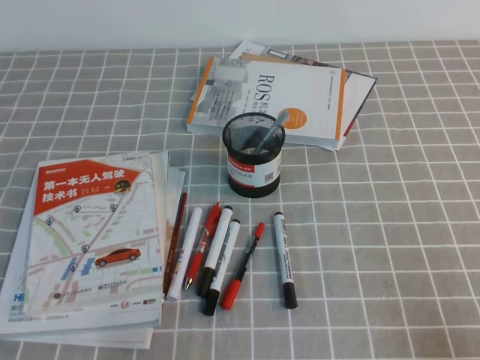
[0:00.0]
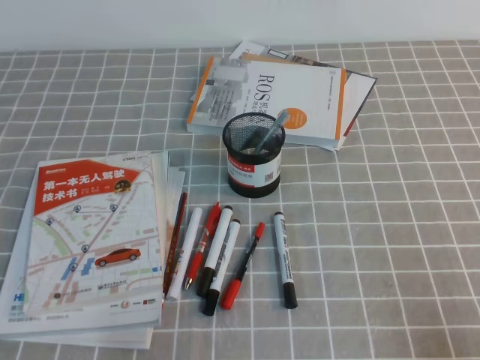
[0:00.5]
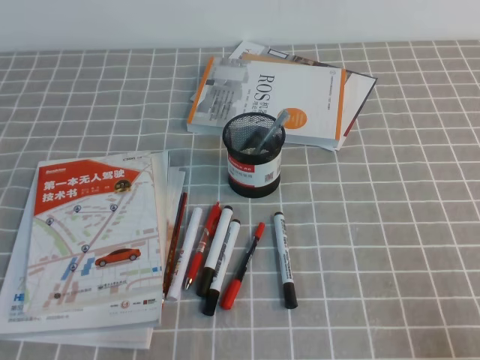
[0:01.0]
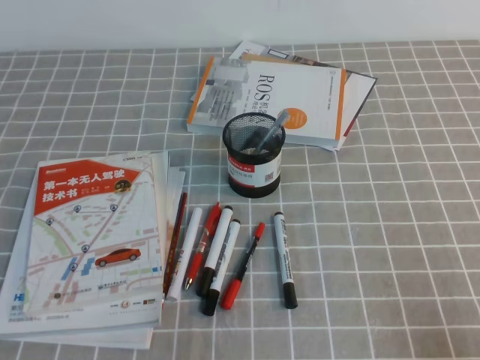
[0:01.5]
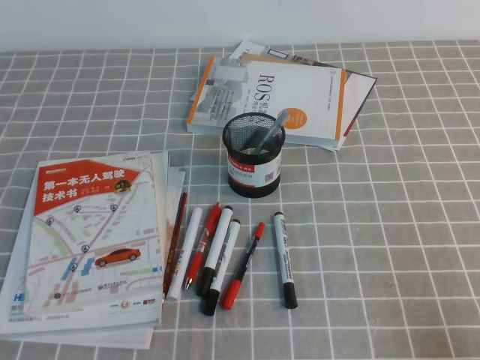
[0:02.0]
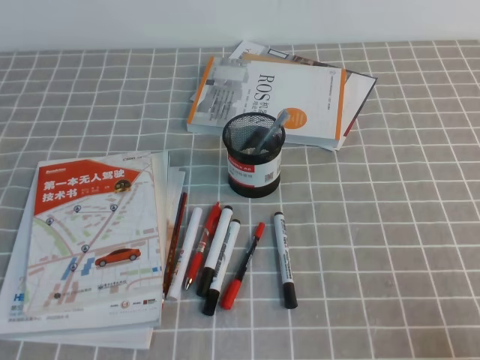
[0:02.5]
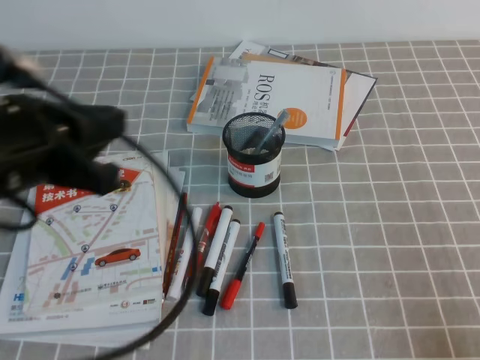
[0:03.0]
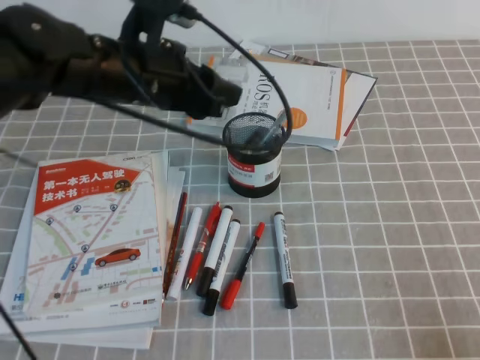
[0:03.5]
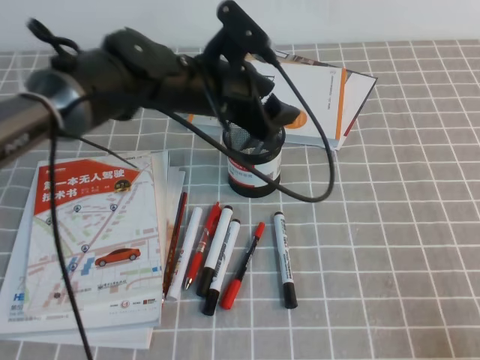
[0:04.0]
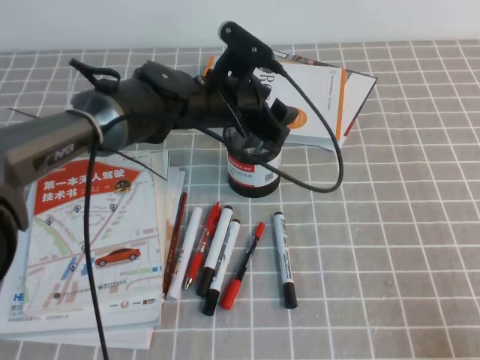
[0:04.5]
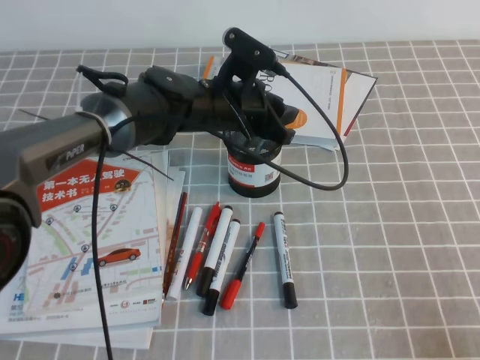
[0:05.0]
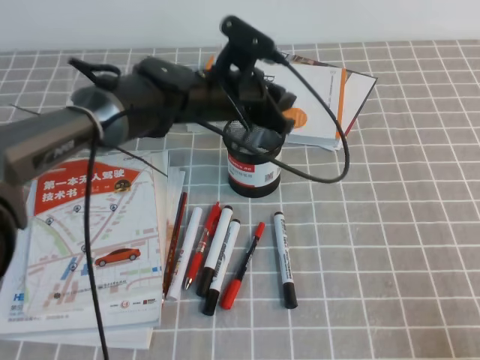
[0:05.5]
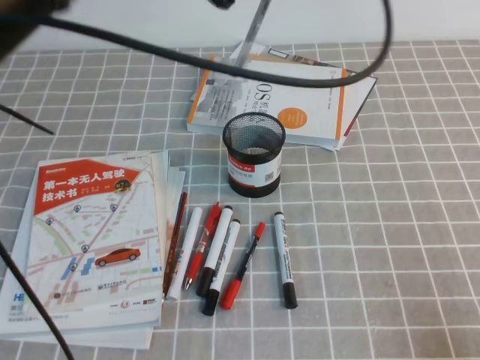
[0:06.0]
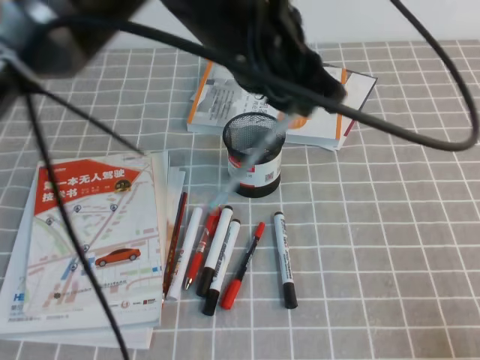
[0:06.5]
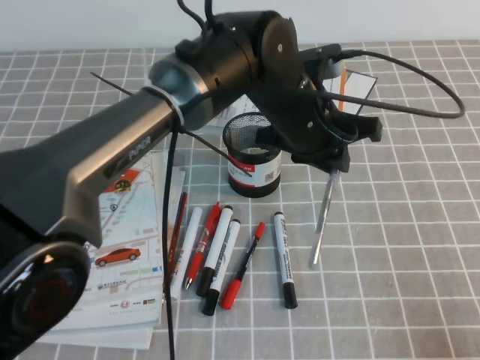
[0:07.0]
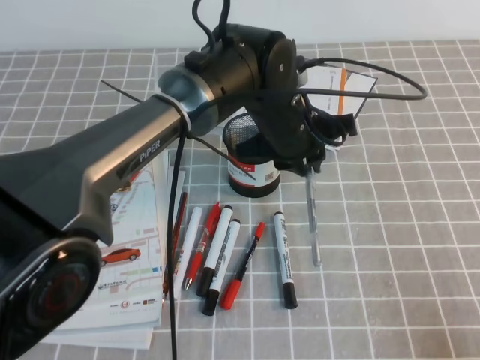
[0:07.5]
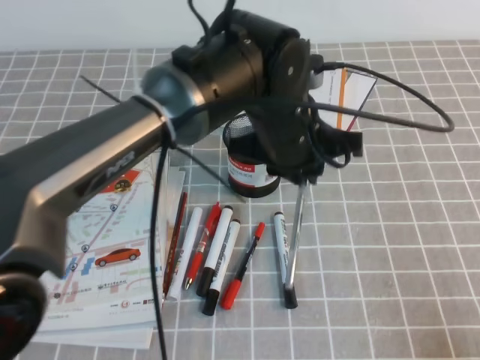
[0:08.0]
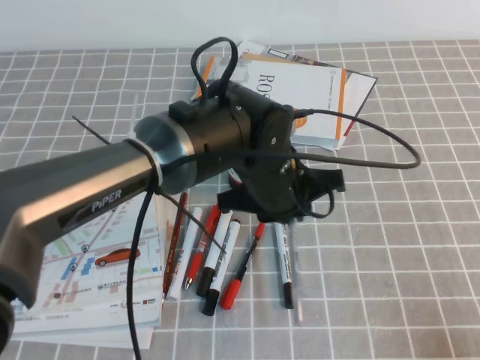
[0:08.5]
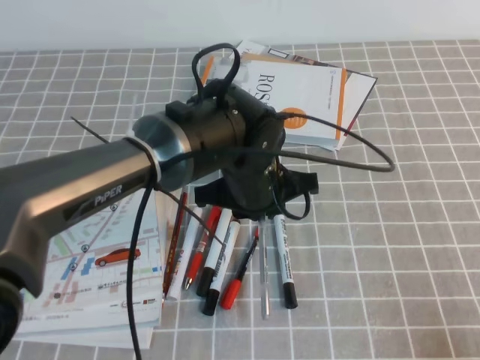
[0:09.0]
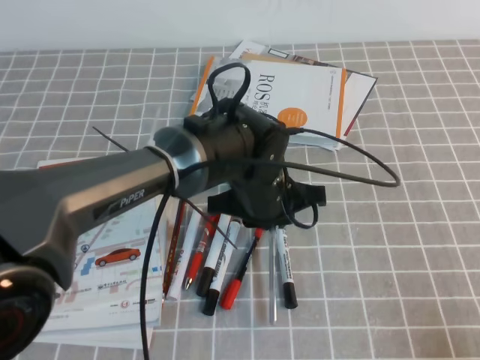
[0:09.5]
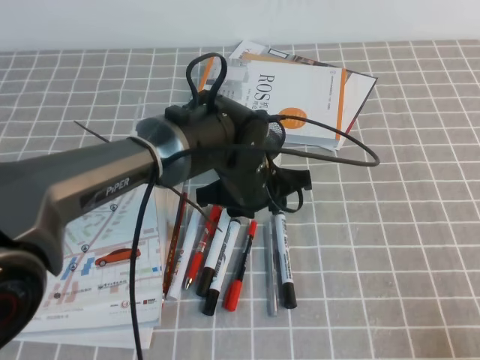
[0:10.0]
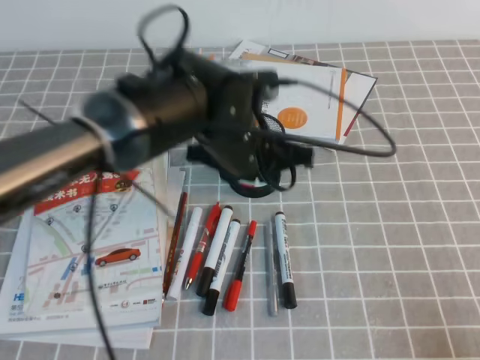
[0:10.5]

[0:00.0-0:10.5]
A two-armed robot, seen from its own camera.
0:02.0 to 0:04.0: The left gripper travels forward and to the right by some 40 cm, and opens its fingers.
0:04.0 to 0:06.5: The left gripper goes some 15 cm upward and backward, and closes its fingers.
0:06.5 to 0:08.5: The left gripper goes about 15 cm downward.

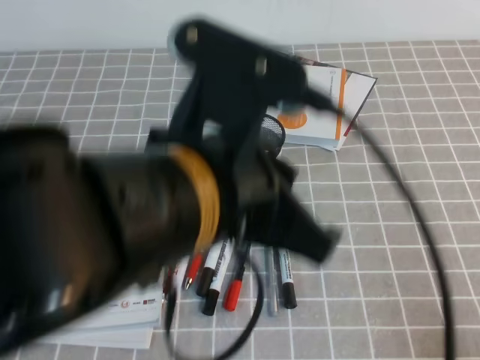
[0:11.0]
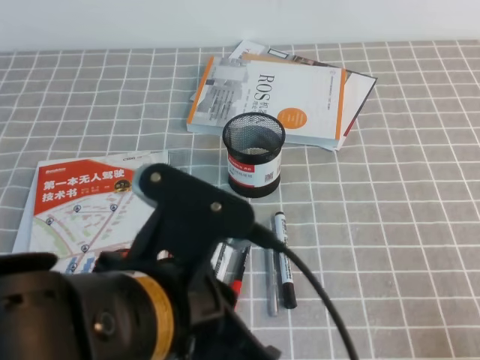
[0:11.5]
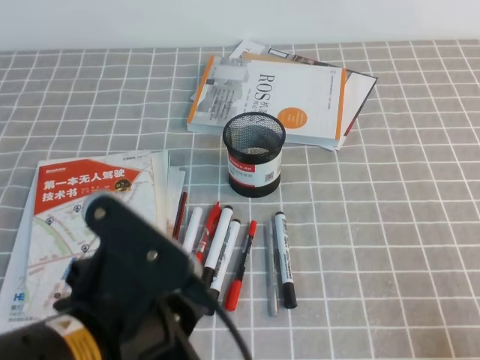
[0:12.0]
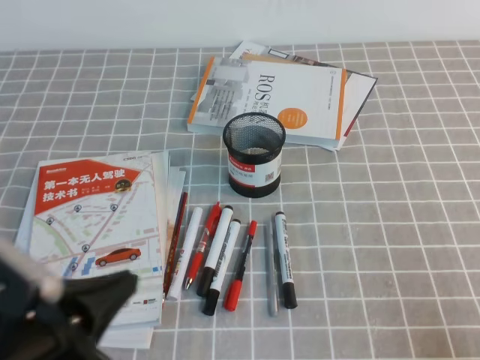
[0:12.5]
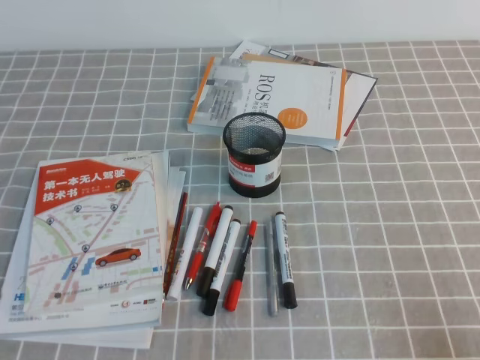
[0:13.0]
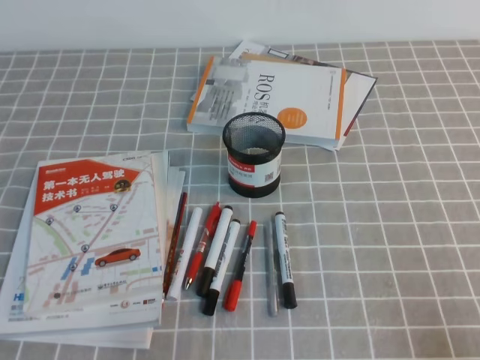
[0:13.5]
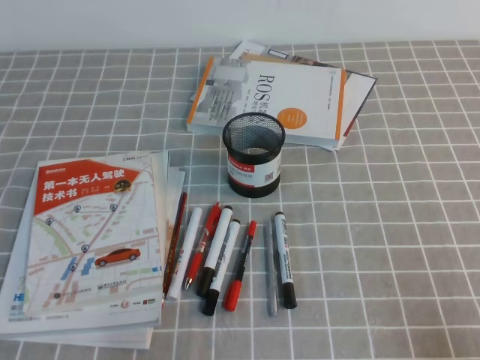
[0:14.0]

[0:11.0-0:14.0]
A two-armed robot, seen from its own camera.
Step, 0:11.0 to 0:14.0: Pick up the pen from the pen holder.
0:11.0 to 0:12.5: The left gripper shifts approximately 20 cm to the left and downward.
0:12.5 to 0:14.0: The left gripper heads to the left and downward, covering some 15 cm.

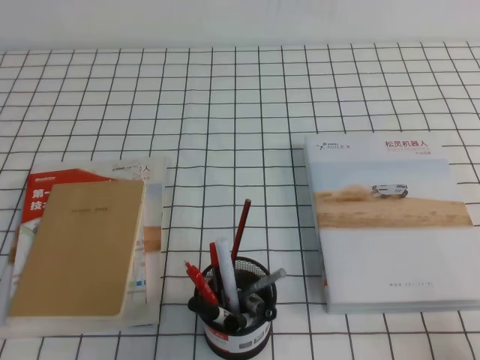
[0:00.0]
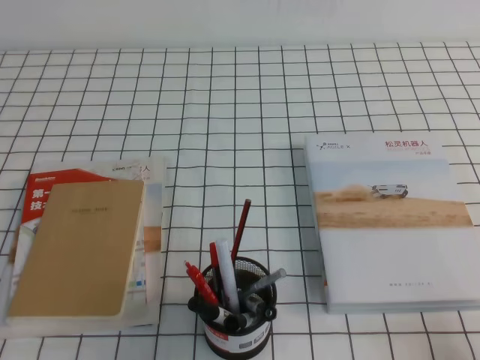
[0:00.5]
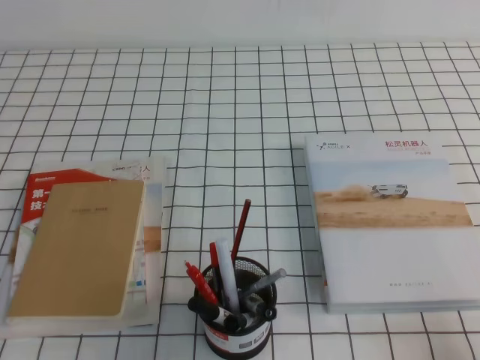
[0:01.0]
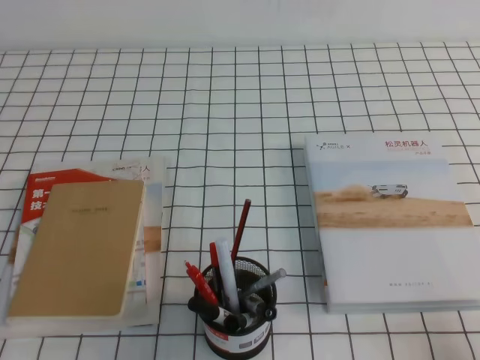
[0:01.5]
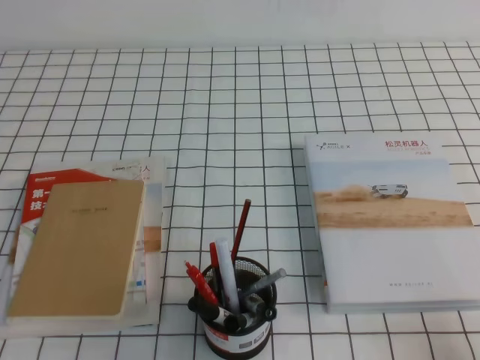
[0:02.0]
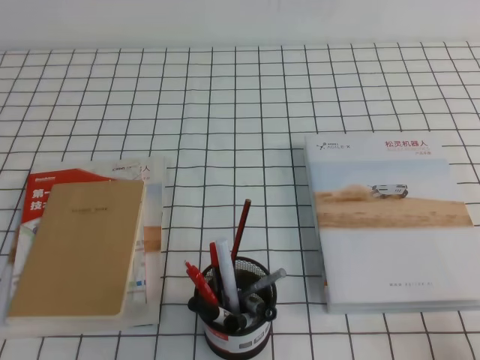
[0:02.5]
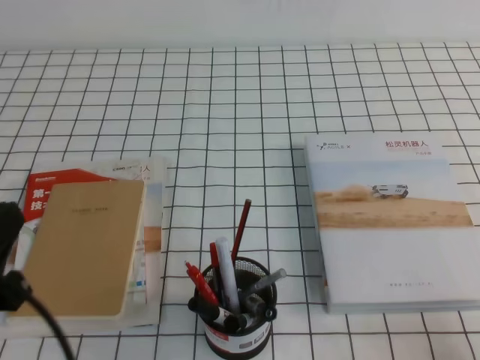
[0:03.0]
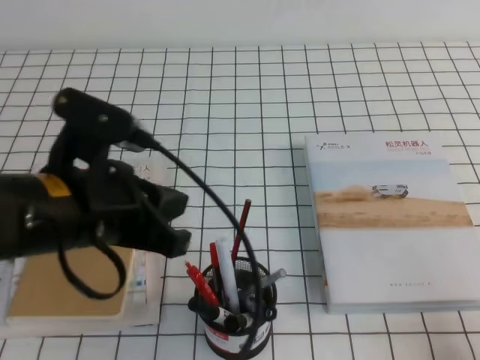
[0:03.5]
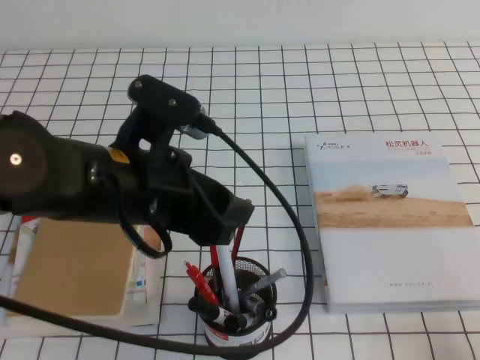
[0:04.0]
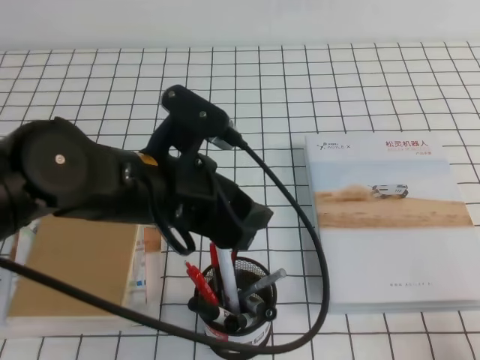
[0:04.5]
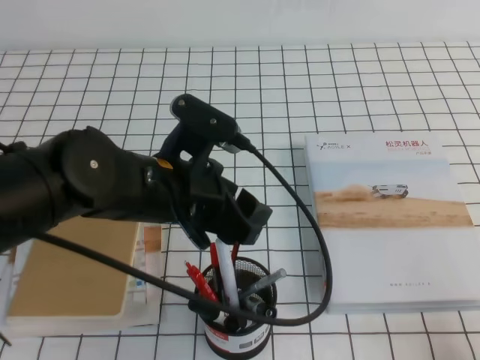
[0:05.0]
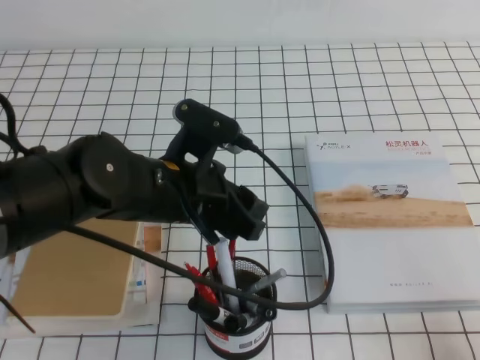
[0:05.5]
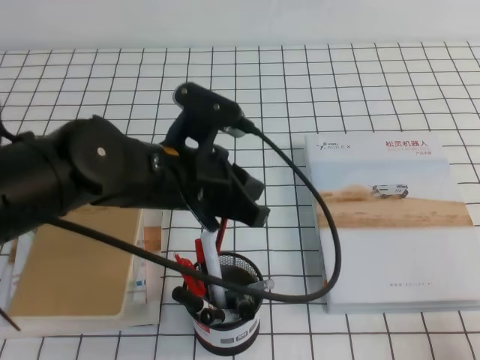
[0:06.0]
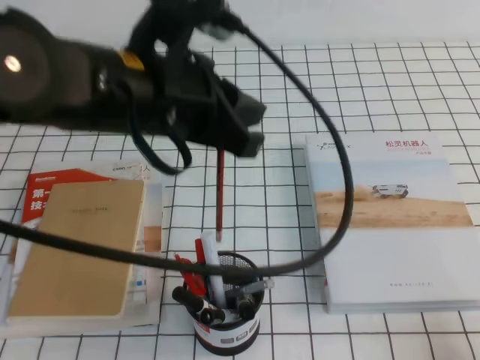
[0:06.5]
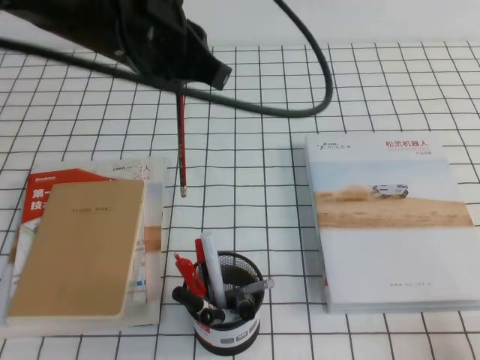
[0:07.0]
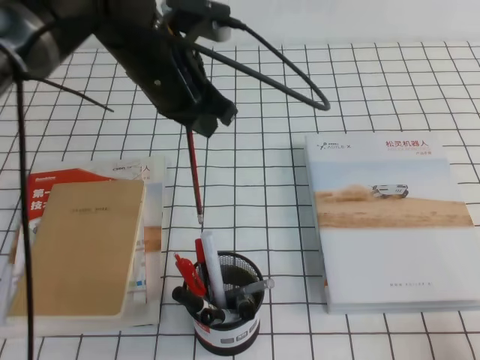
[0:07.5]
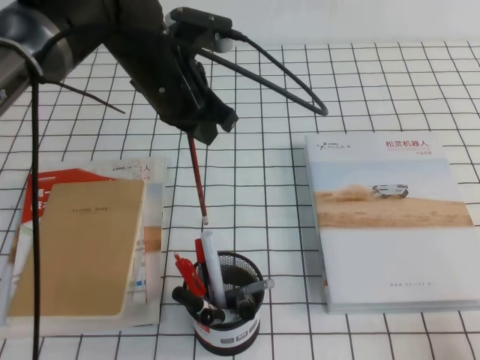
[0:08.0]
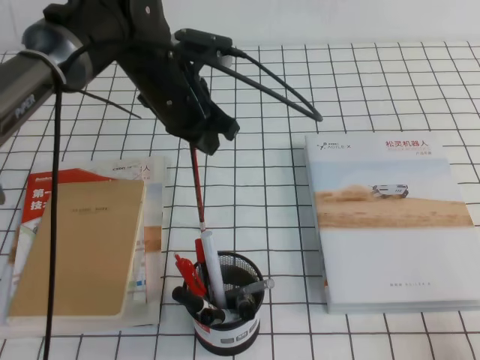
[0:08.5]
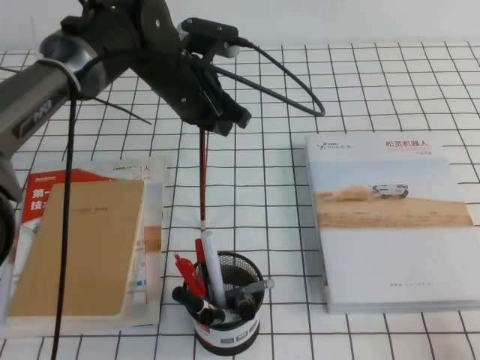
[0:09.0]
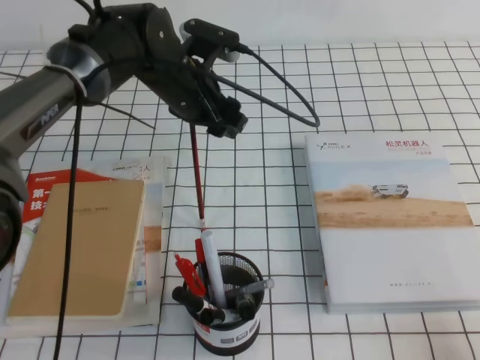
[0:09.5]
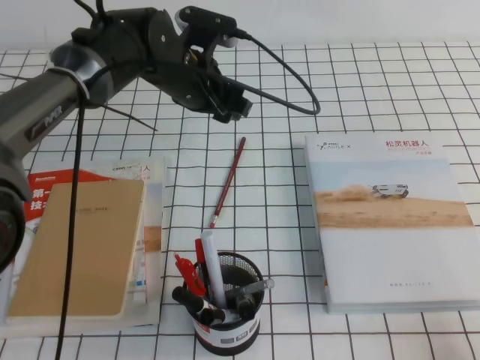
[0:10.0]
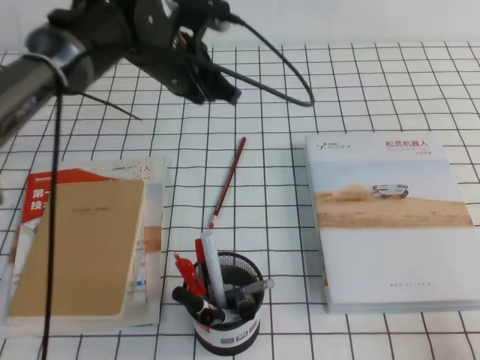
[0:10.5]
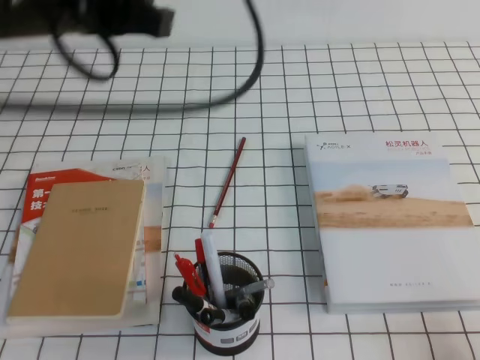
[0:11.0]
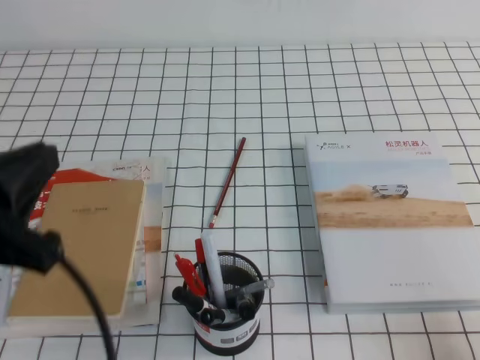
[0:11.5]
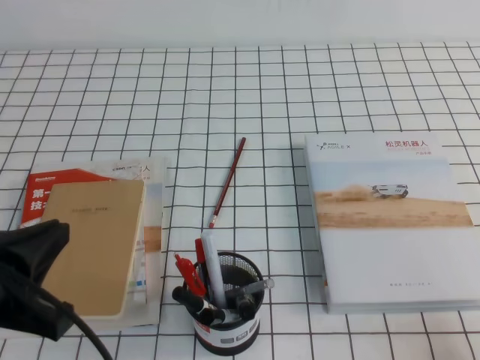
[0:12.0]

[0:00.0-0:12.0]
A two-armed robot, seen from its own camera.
0:02.0 to 0:04.0: The left gripper is displaced to the right, forward and upward by approximately 25 cm, and opens its fingers.
0:04.0 to 0:06.0: The left gripper moves approximately 5 cm, and closes.
0:06.0 to 0:08.0: The left gripper shifts about 10 cm forward, and reaches some 15 cm upward, then returns.
0:08.0 to 0:10.0: The left gripper moves forward, about 5 cm, and opens up.
0:10.0 to 0:12.0: The left gripper is displaced backward and to the left by about 35 cm, and closes its fingers.
